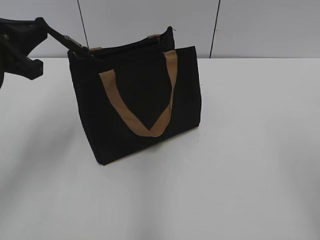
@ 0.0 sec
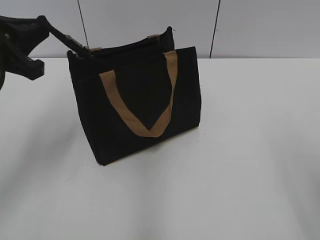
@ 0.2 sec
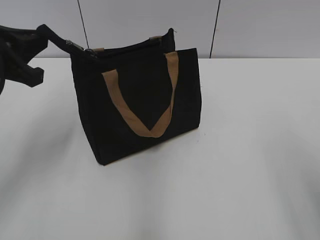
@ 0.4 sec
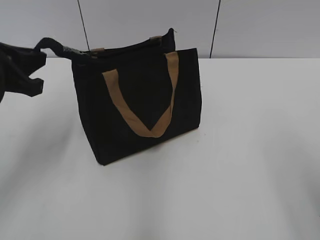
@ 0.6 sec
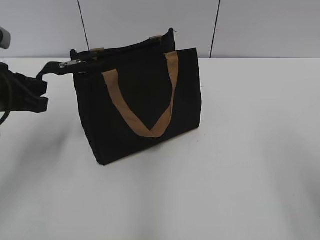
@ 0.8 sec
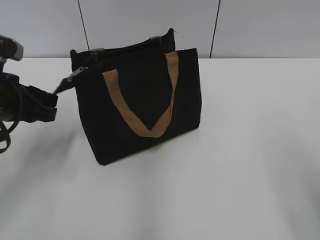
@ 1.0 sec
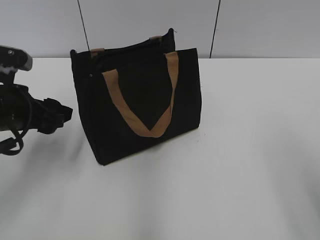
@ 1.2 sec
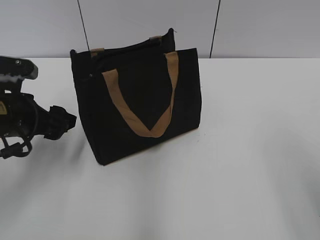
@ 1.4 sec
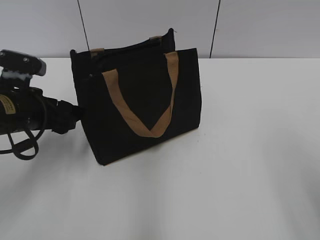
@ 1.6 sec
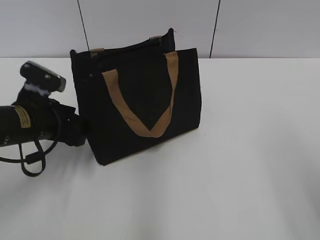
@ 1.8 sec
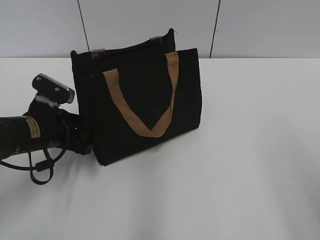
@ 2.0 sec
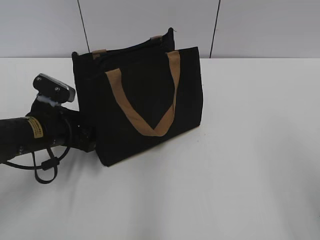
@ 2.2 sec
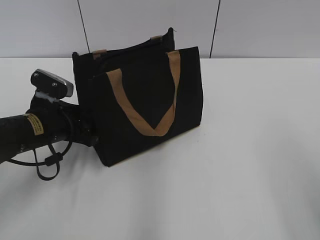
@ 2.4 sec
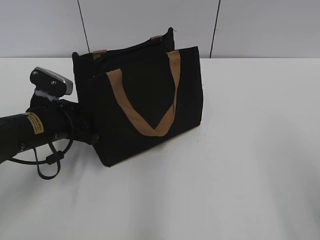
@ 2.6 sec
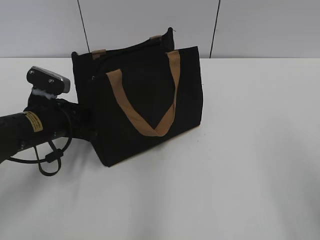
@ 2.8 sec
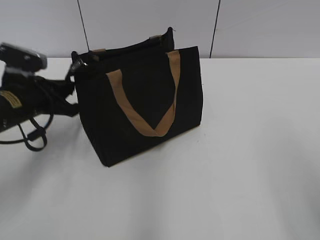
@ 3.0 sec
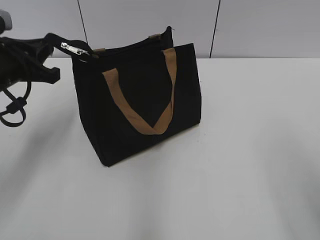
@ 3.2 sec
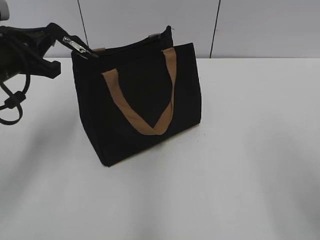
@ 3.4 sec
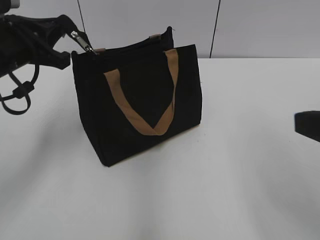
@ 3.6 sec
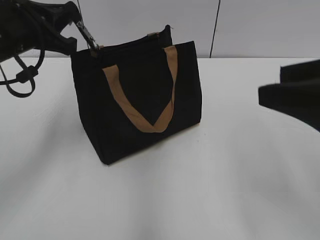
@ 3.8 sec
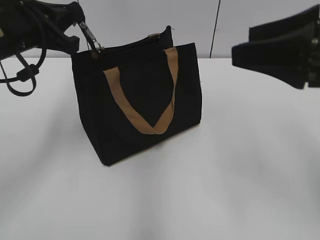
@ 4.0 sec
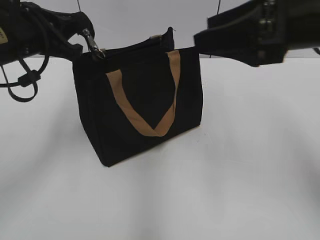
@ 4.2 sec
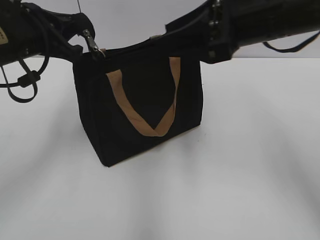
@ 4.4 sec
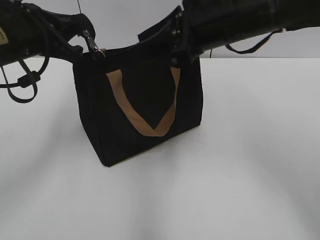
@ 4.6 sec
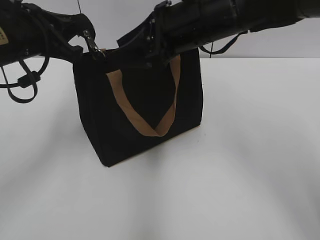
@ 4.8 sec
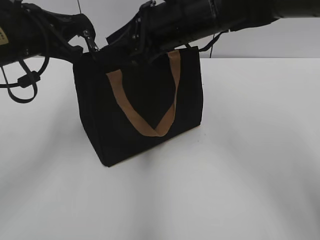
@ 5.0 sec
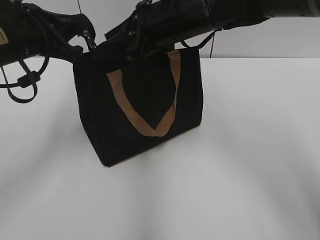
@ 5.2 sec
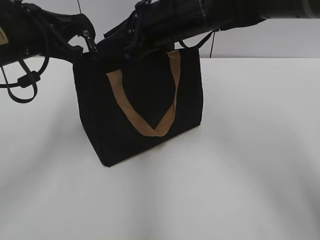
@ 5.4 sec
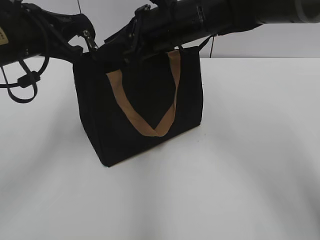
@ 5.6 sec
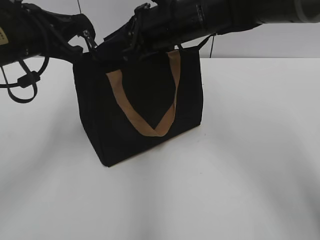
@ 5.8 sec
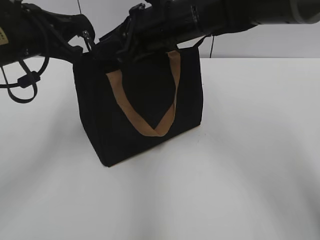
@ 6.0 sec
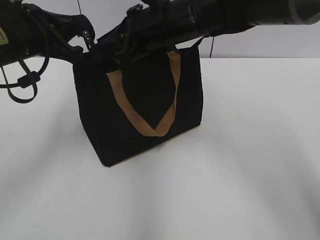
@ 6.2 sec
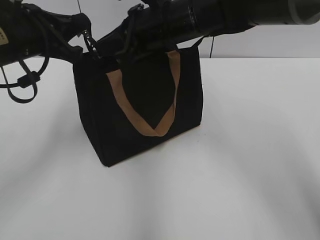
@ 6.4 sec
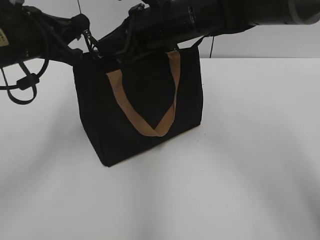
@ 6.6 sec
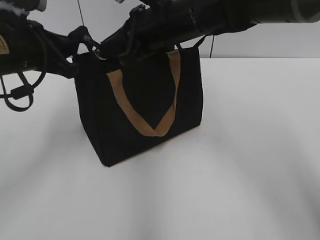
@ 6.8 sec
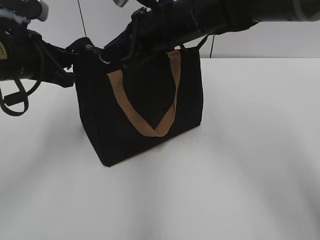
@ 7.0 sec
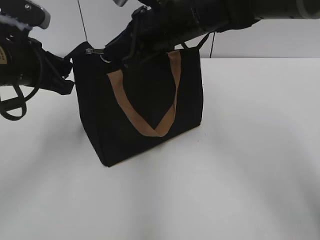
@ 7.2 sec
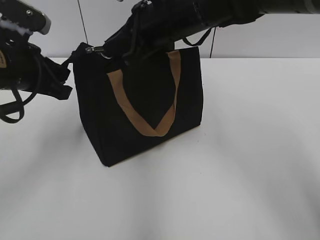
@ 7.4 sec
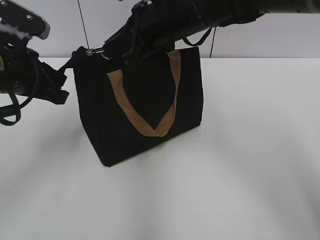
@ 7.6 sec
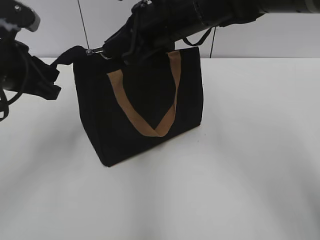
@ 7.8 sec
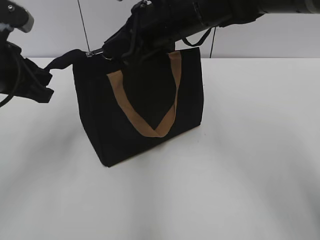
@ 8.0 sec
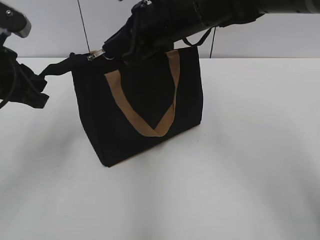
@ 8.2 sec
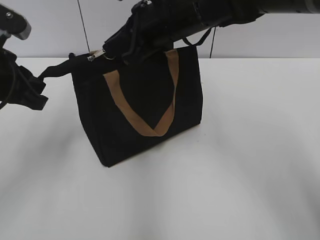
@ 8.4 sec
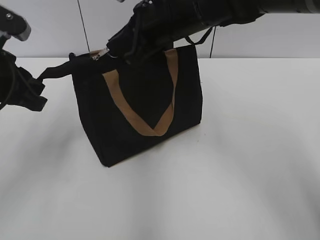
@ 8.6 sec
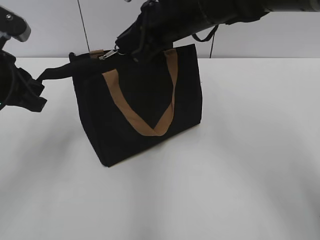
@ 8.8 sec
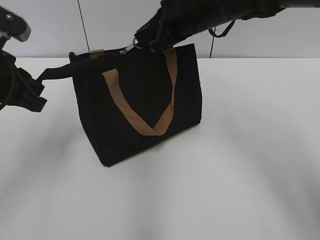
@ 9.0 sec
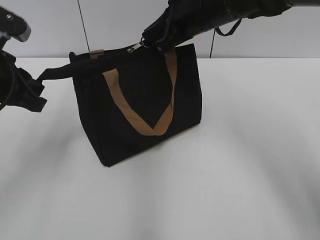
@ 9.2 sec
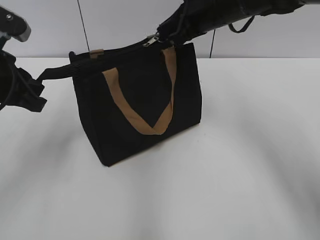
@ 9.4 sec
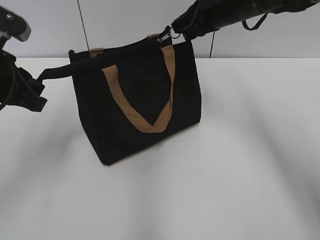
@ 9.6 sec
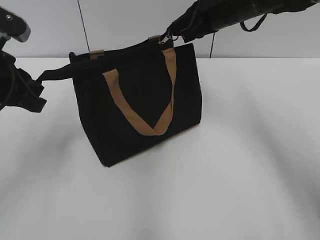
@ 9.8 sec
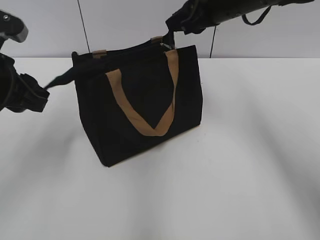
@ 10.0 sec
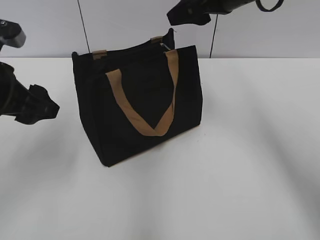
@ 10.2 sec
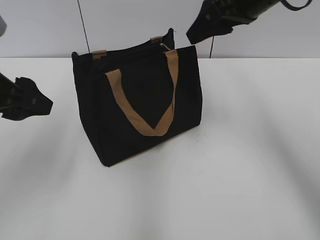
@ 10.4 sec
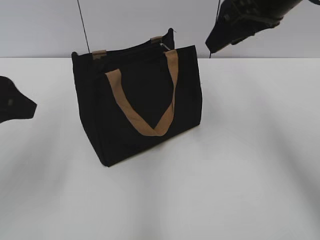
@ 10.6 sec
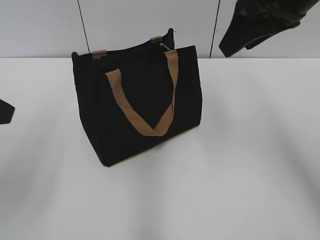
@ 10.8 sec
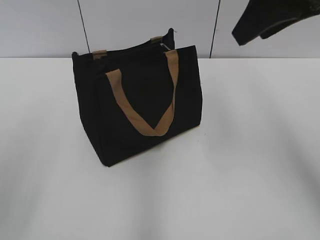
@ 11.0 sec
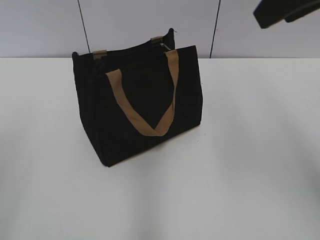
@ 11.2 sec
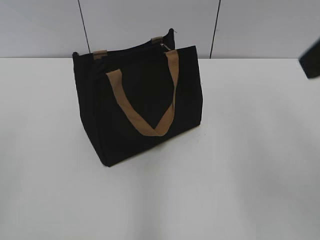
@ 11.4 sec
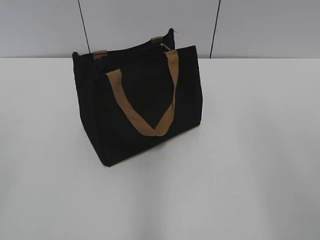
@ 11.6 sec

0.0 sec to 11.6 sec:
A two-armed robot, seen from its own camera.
Step, 0.0 sec to 9.8 sec: Zip up the bag with your right hand.
0.0 sec to 1.4 sec: The left gripper shifts roughly 10 cm downward, and opens.
1.4 sec to 2.8 sec: The left gripper shifts some 5 cm downward, and closes its fingers.
2.8 sec to 4.4 sec: The left gripper travels upward by roughly 15 cm; the right gripper is displaced forward and to the left by approximately 25 cm.
4.4 sec to 5.8 sec: The right gripper is displaced to the left, forward and downward by roughly 15 cm.
5.8 sec to 7.2 sec: The right gripper closes its fingers.
7.2 sec to 8.8 sec: The grippers move only a little.
8.8 sec to 10.2 sec: The right gripper is displaced to the right by about 10 cm, and opens up, while the left gripper opens its fingers.
10.2 sec to 11.6 sec: The right gripper travels backward by about 25 cm; the left gripper is displaced backward, upward and to the left by about 25 cm.
